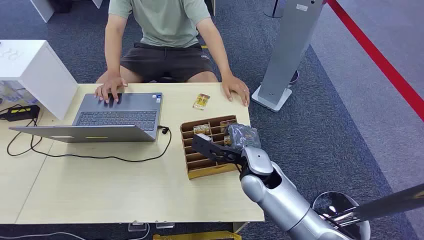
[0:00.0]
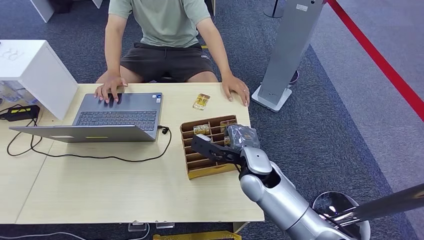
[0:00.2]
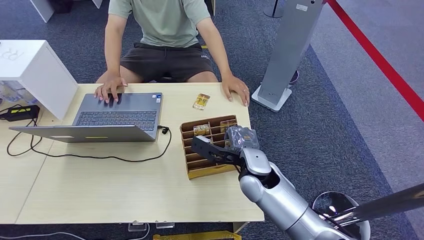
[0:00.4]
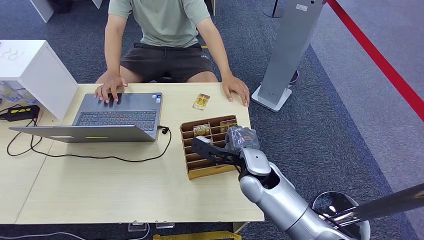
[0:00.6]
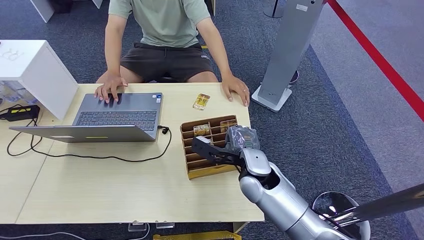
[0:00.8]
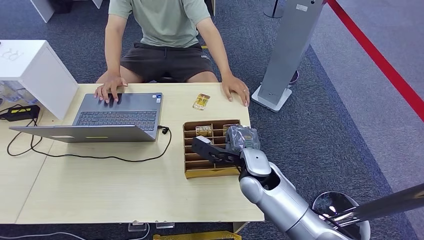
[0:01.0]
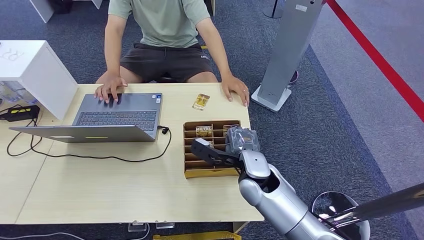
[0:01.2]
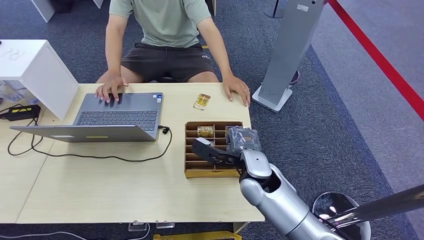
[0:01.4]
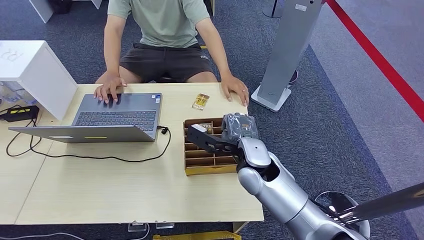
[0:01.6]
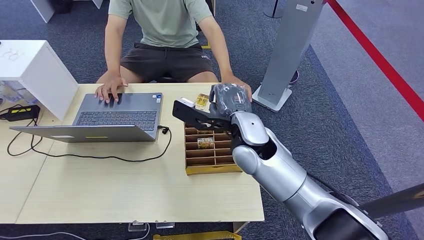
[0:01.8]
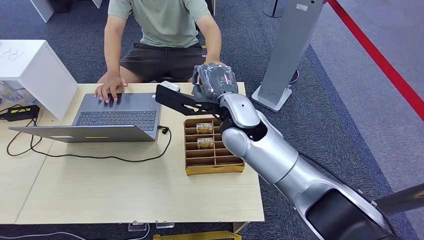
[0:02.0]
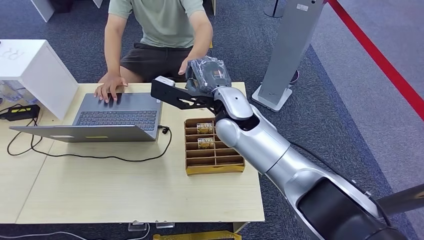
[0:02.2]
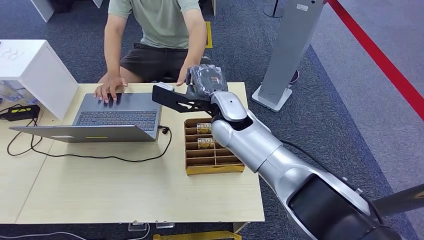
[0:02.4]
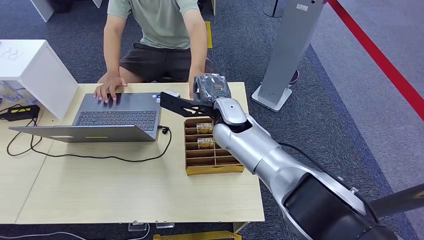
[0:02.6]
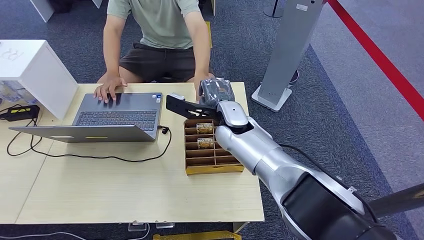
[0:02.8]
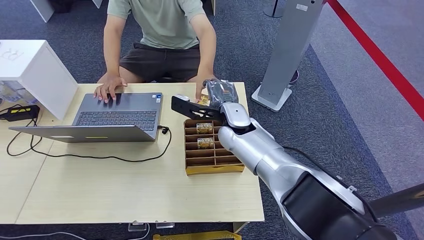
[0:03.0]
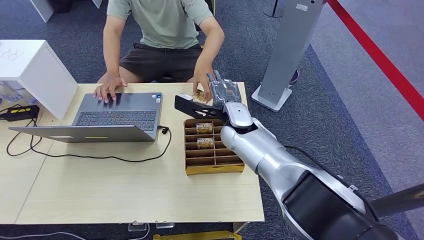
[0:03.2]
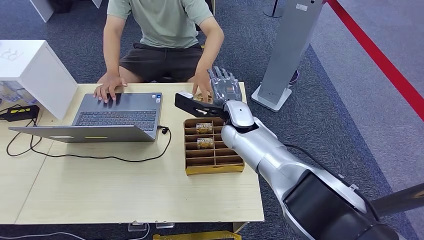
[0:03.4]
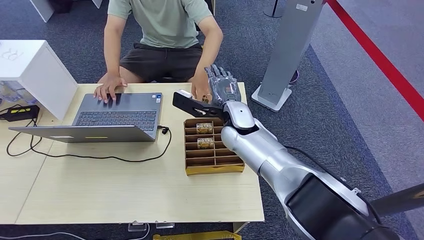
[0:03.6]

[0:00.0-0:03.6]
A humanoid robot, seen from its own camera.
Step, 0:00.0 to 0:01.8: Pick up the key card from the card box.
Step, 0:02.0 to 0:03.6: Hand the key card to the target.
0:01.8 to 0:03.6: The right hand is displaced forward by about 5 cm.
